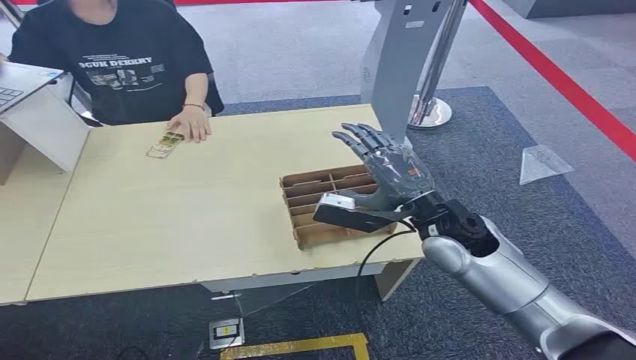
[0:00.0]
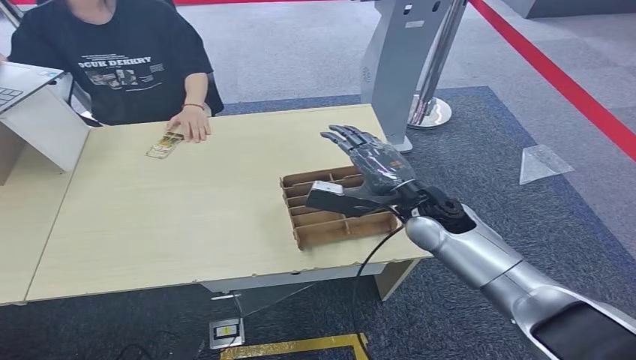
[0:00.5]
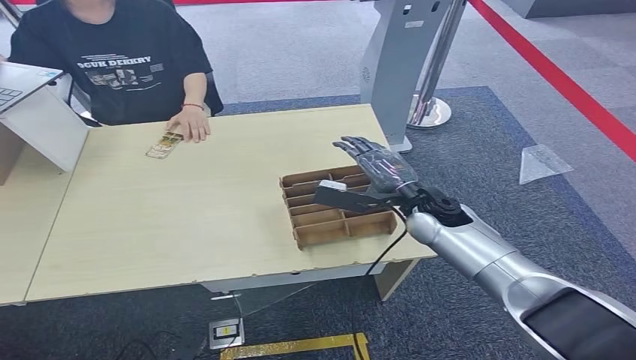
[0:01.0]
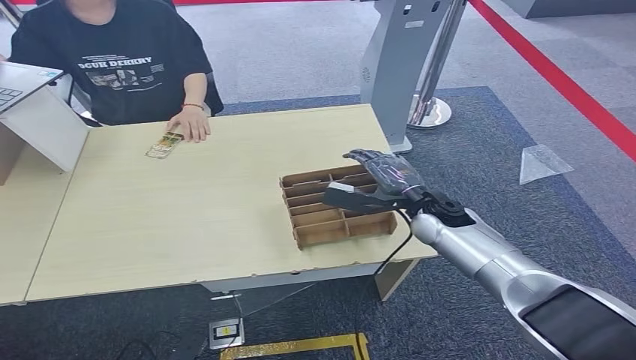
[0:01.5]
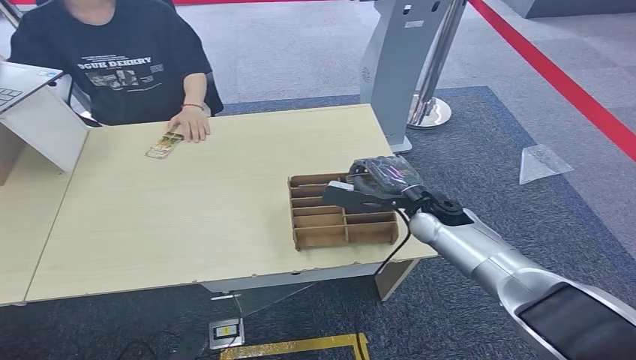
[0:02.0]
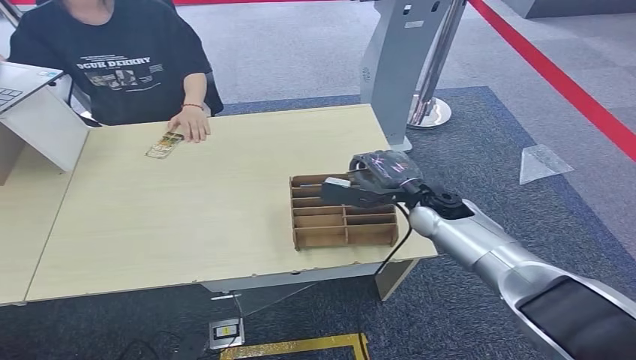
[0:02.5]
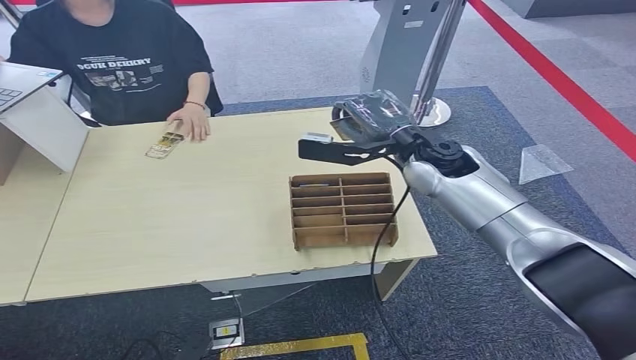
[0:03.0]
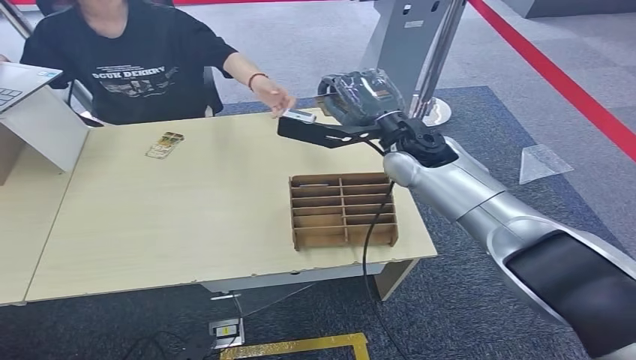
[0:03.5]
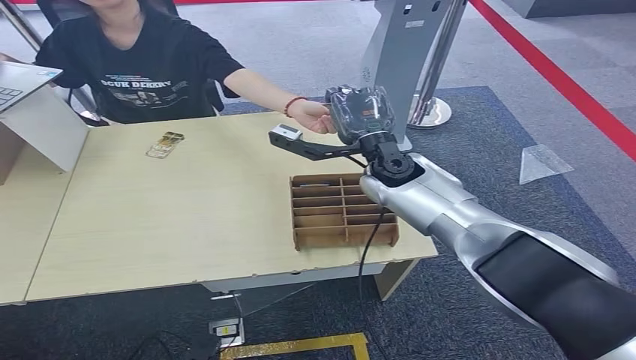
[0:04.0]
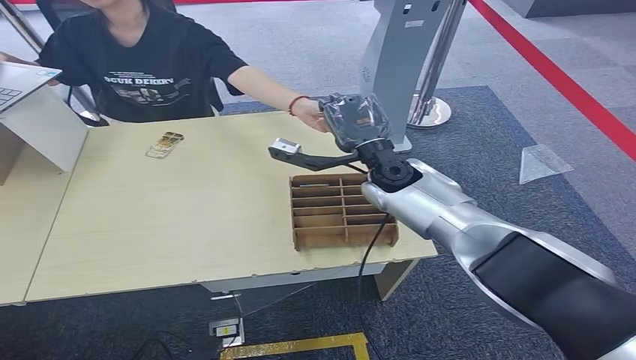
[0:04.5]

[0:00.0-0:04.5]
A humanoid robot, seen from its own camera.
Step, 0:00.0 to 0:02.5: Pick up the room card from the card holder.
Step, 0:03.0 to 0:04.5: Hand the room card to the target.
0:02.0 to 0:04.5: The right hand heads upward, to the left and forward, covering roughly 15 cm.

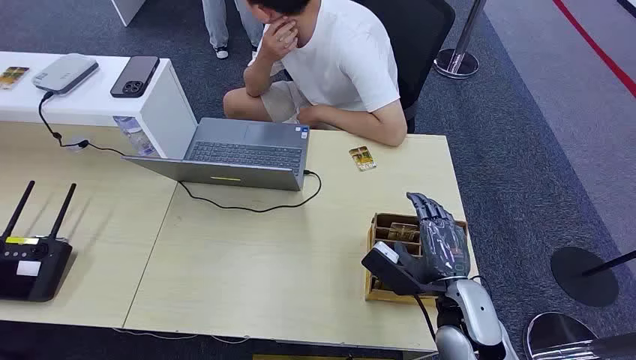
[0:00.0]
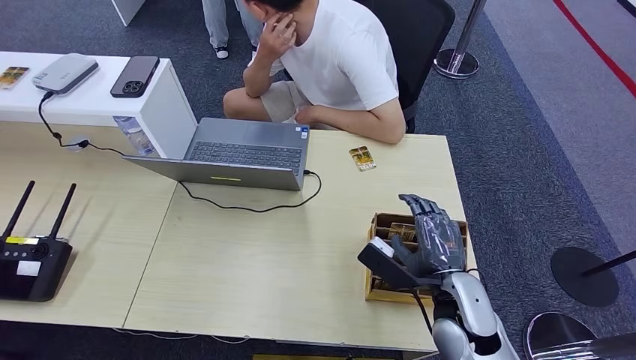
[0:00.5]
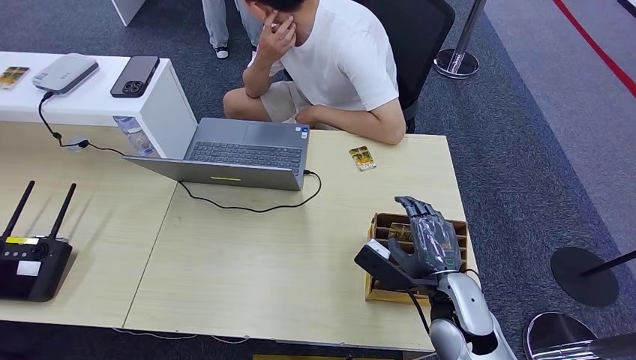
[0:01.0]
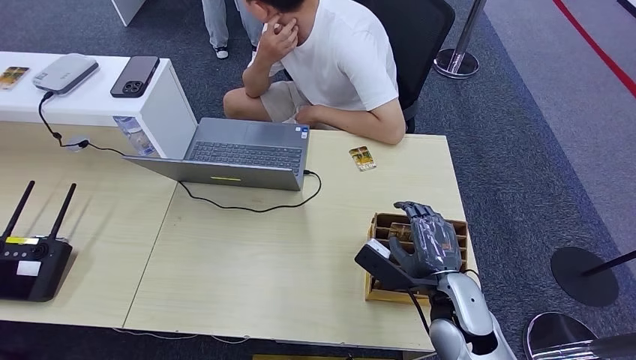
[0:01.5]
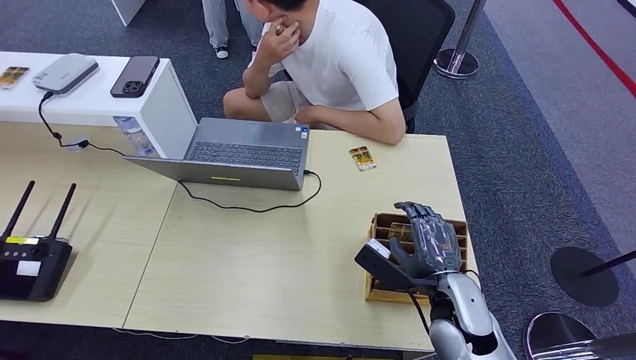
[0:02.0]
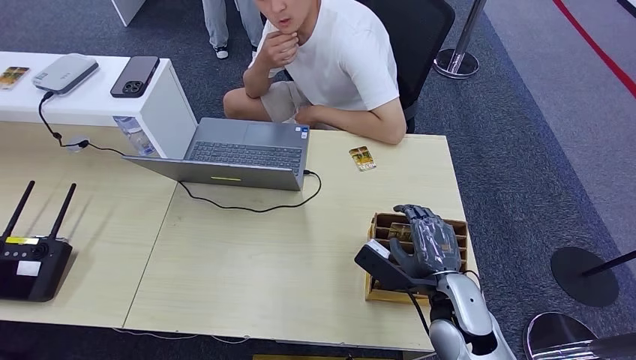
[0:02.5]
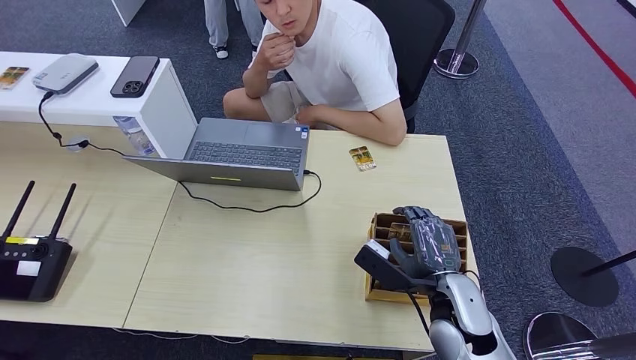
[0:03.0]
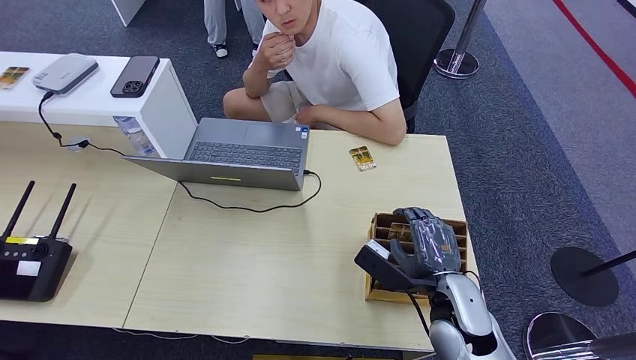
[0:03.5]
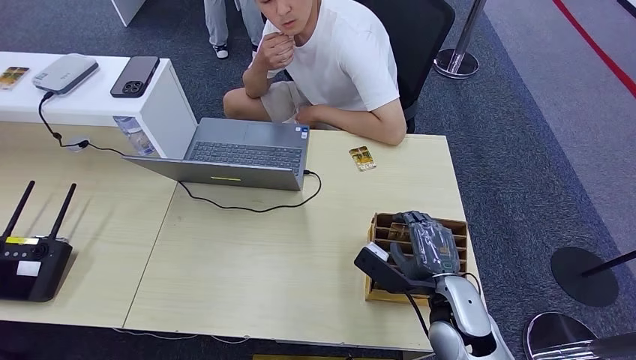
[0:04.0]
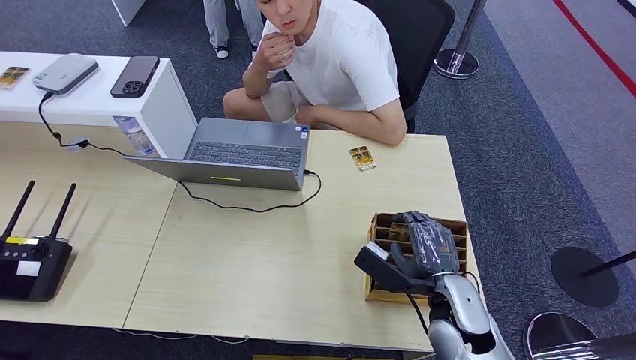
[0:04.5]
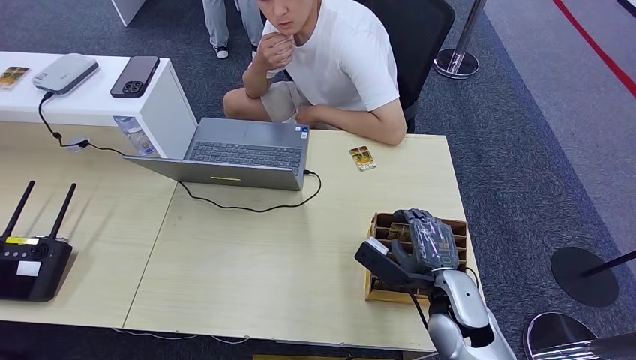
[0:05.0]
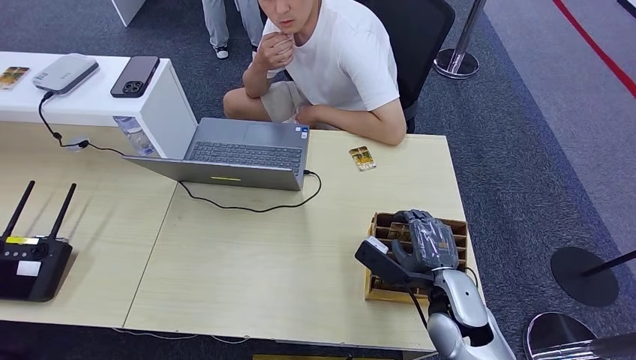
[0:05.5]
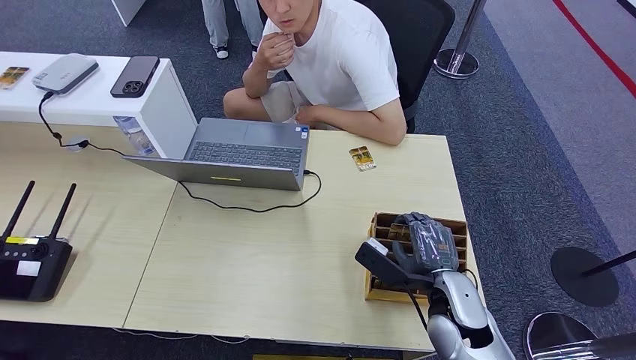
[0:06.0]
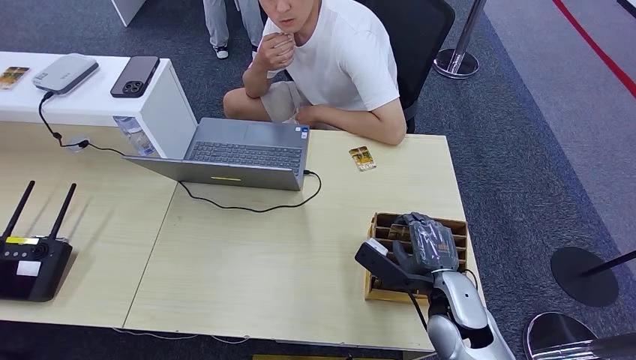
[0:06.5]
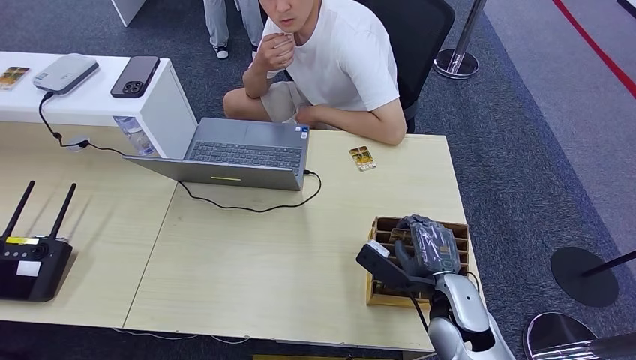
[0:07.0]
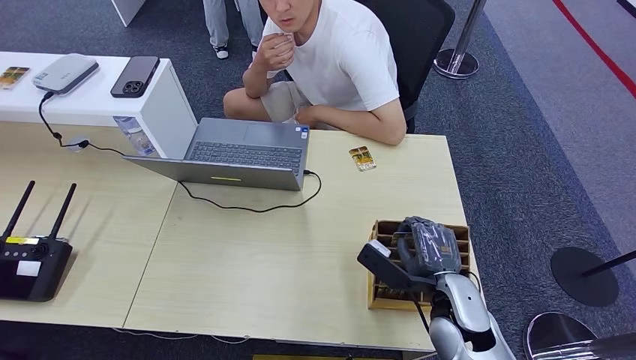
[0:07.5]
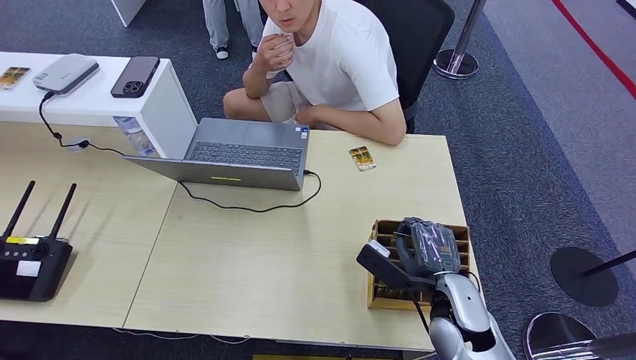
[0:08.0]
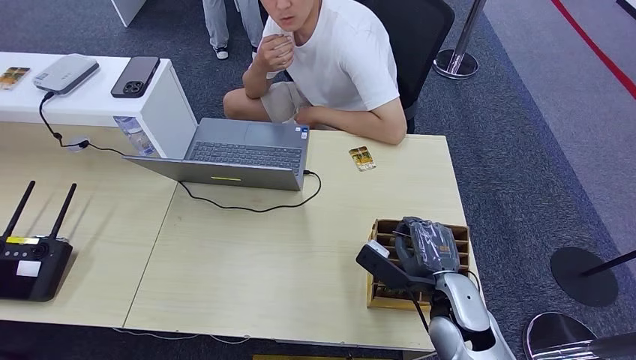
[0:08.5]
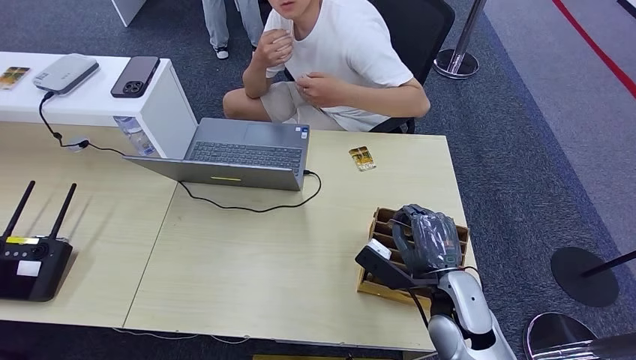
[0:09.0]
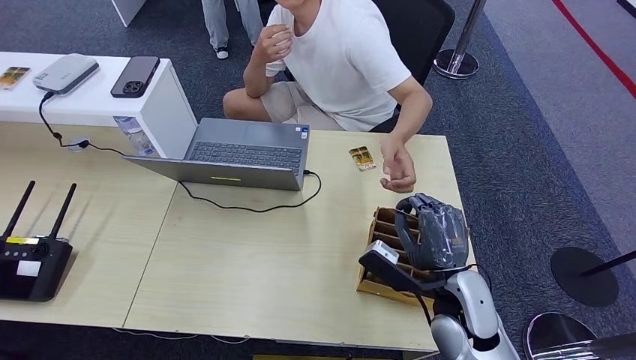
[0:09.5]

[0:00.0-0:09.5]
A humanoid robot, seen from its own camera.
Step, 0:00.0 to 0:08.5: Pick up the room card from the card holder.
Step, 0:09.0 to 0:09.5: Hand the room card to the target.
0:02.0 to 0:04.0: Both hands stay about where they are.
0:04.0 to 0:07.5: Both hands stay about where they are.
